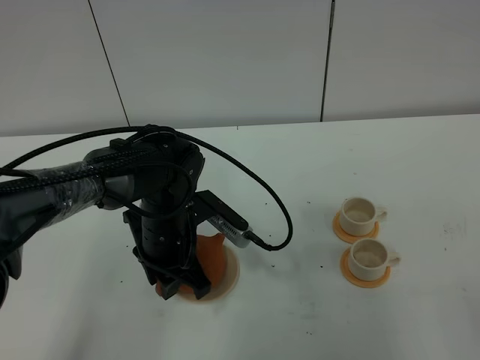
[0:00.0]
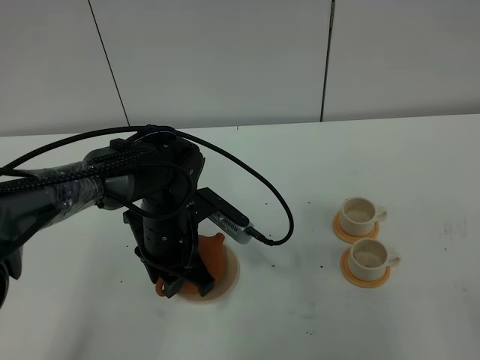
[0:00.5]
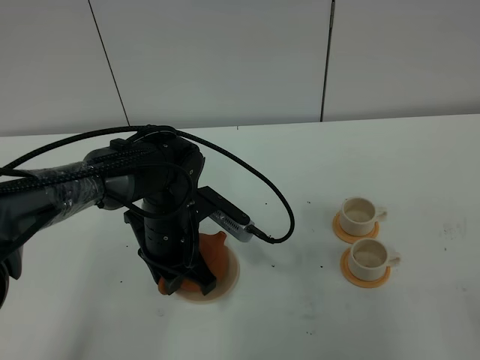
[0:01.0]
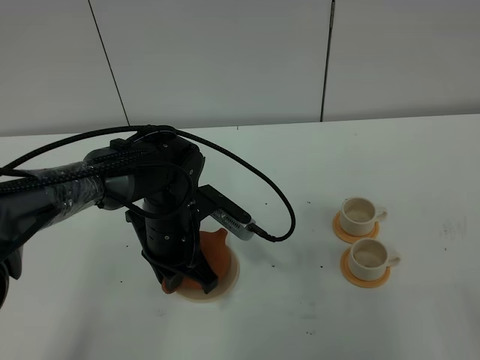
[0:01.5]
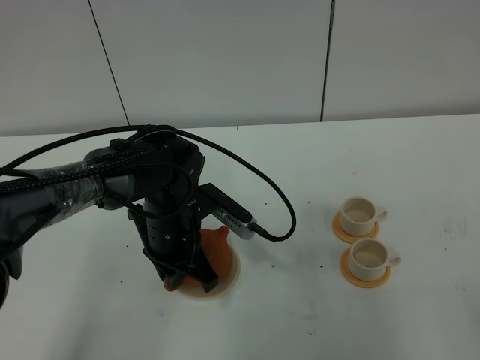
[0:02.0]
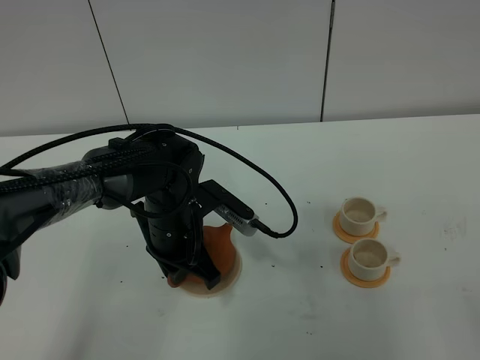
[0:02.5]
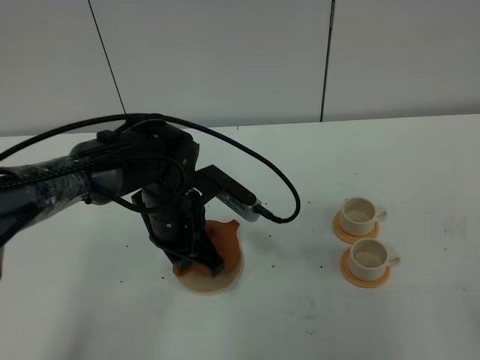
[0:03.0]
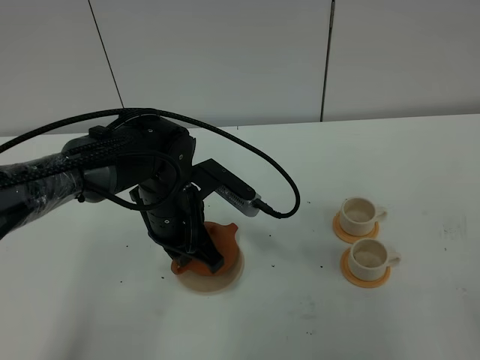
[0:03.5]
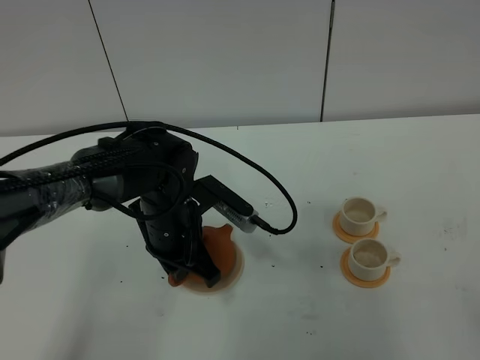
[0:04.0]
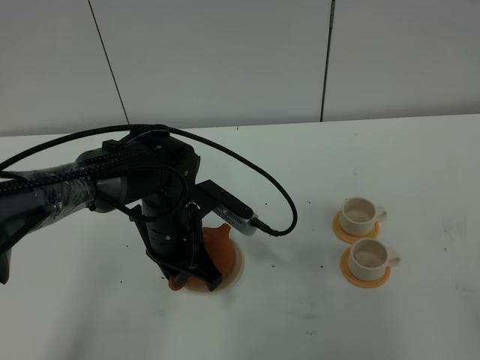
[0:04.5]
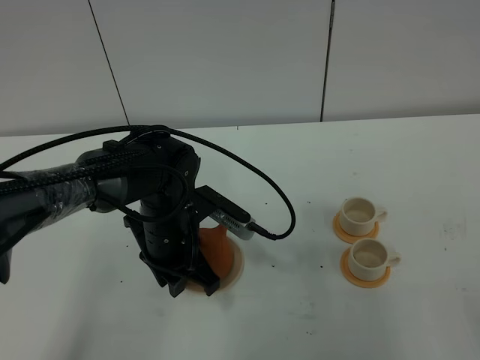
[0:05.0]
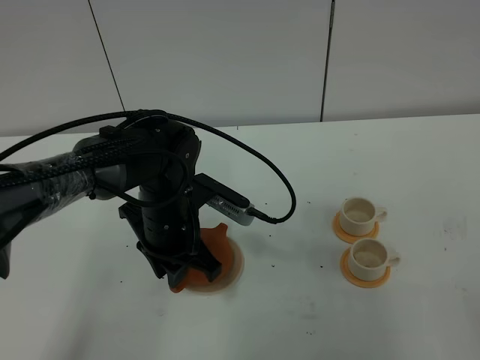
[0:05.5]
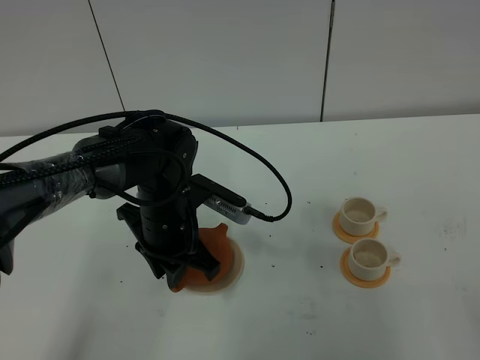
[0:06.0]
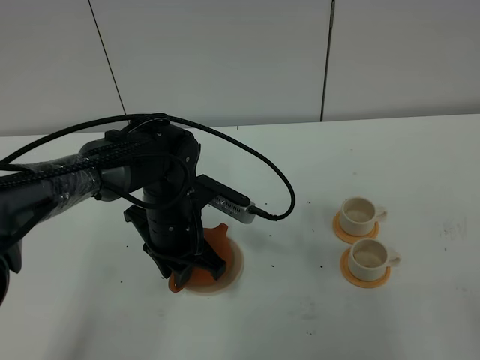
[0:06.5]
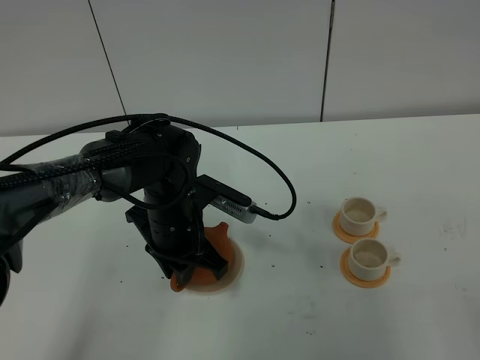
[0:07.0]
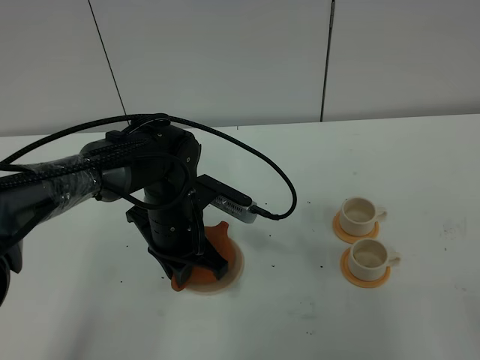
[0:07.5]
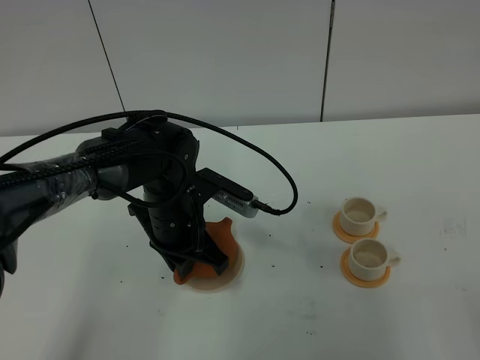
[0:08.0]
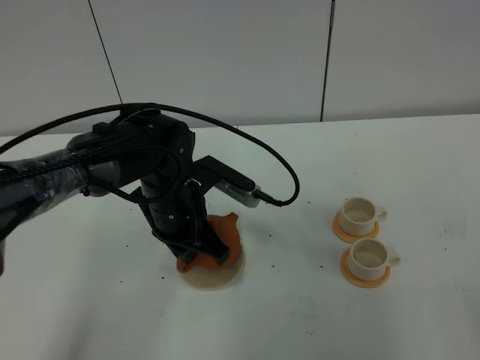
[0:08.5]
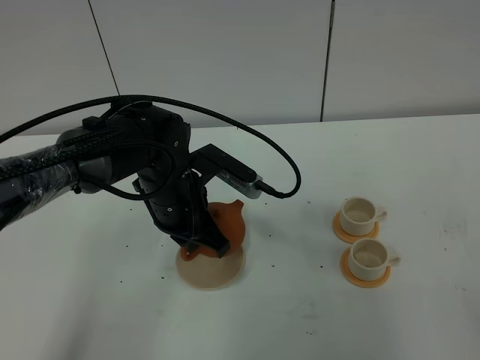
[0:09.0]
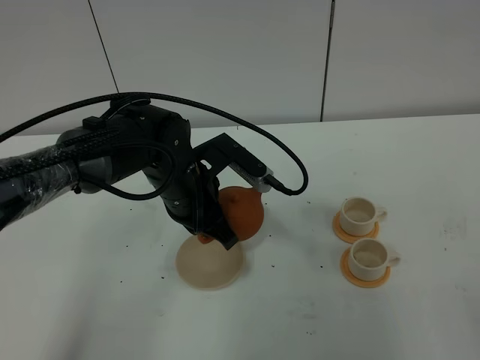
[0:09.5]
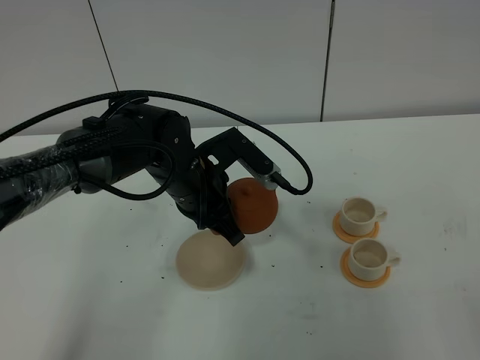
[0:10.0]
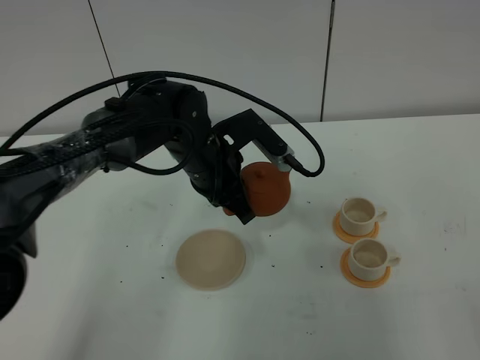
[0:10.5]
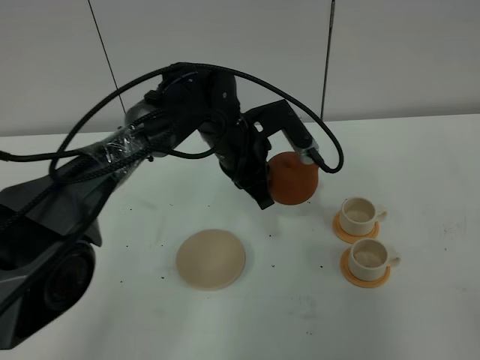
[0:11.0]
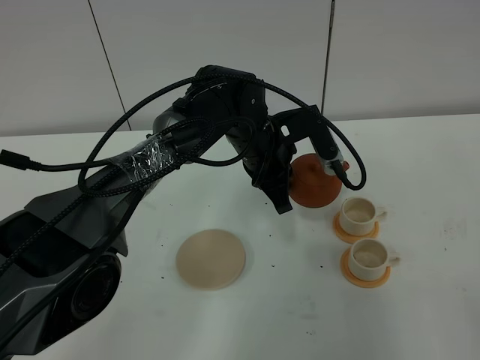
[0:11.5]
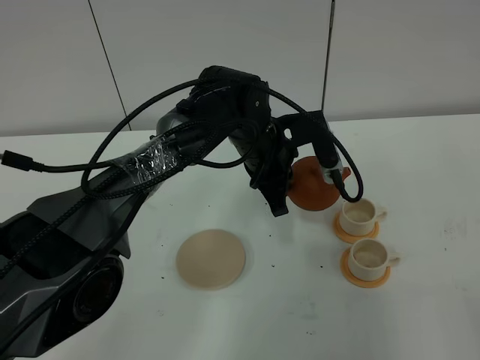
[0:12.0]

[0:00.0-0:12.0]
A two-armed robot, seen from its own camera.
Task of the whole recording: grasp the brown teapot and pour the tea into the two white teacups one by one, put the brown teapot back in its original place.
Step, 0:00.0 to 0:09.0: Pick up the teapot with the left gripper.
0:00.0 to 0:02.0: The left gripper closes its fingers.
0:02.0 to 0:08.0: The grippers stay close to where they were, moving slightly.
0:10.0 to 0:12.0: The left gripper goes approximately 10 cm to the right and forward.

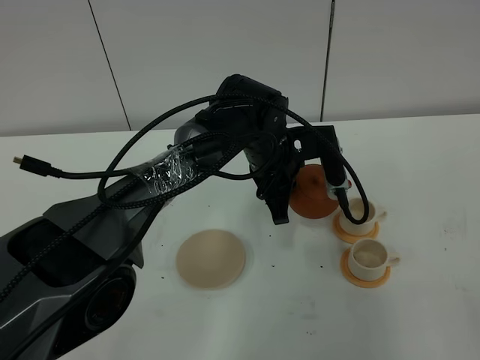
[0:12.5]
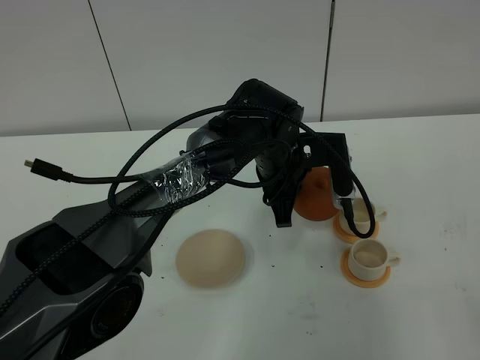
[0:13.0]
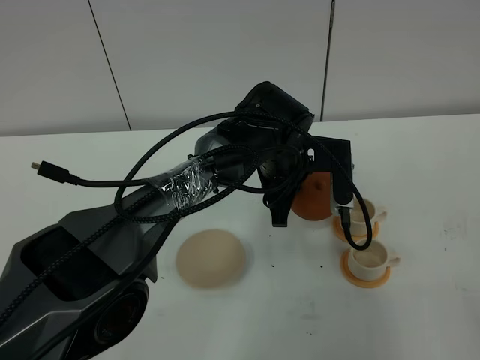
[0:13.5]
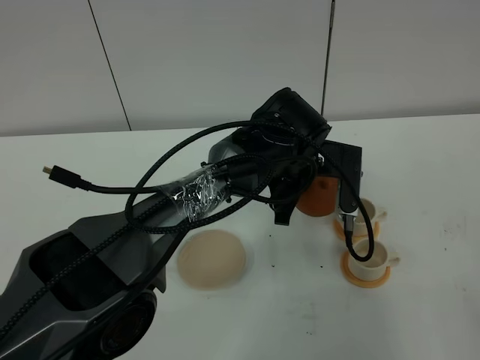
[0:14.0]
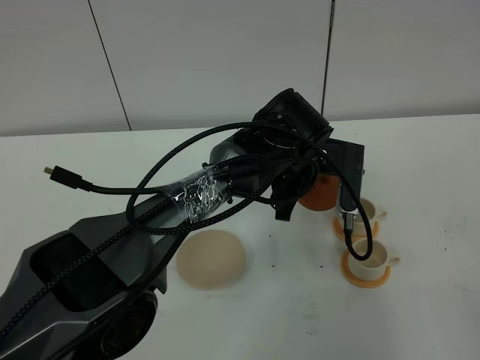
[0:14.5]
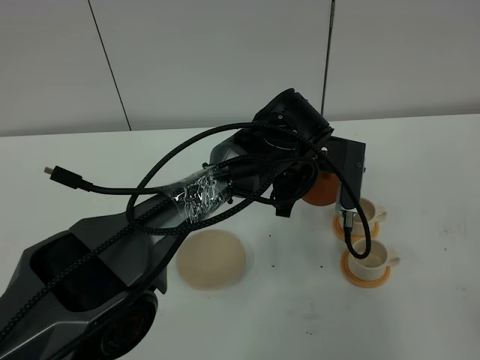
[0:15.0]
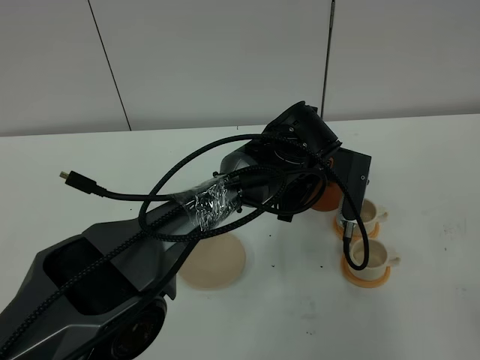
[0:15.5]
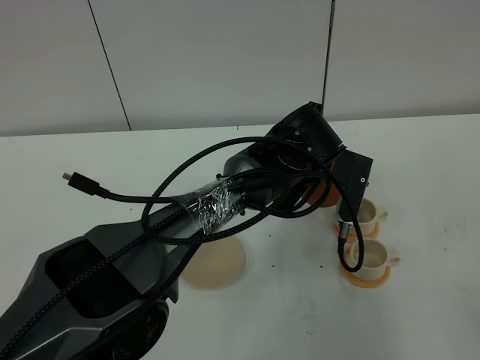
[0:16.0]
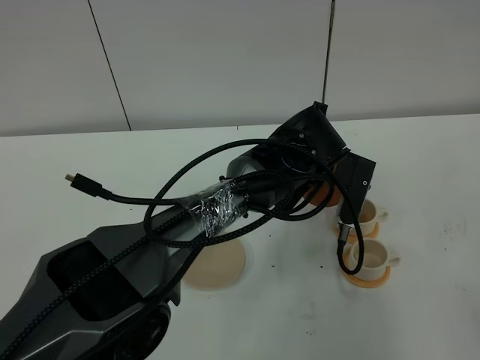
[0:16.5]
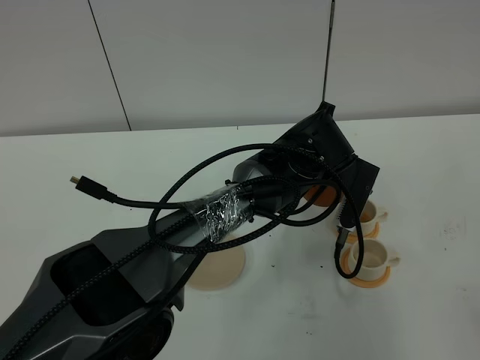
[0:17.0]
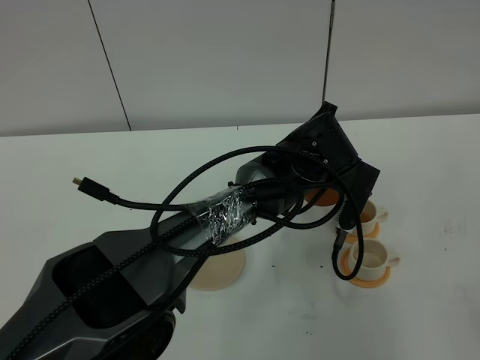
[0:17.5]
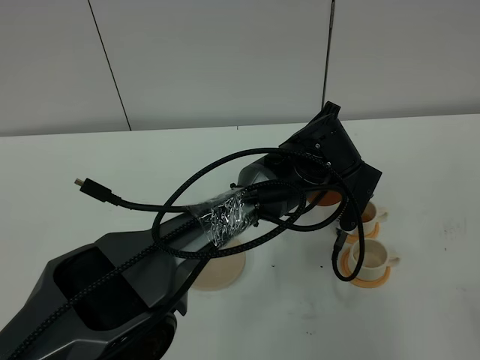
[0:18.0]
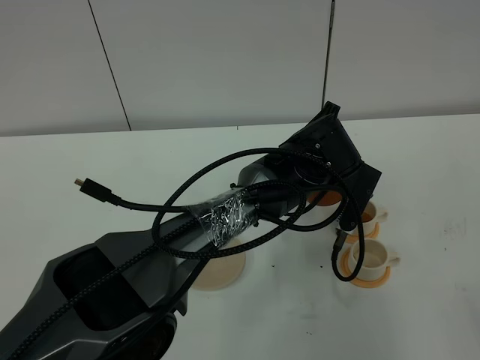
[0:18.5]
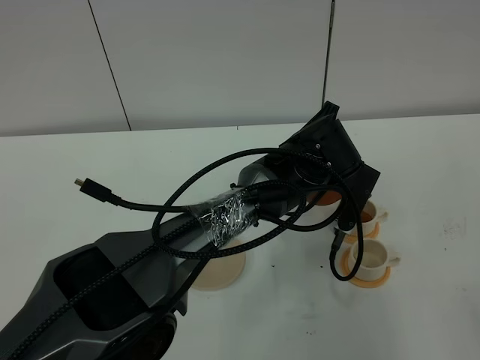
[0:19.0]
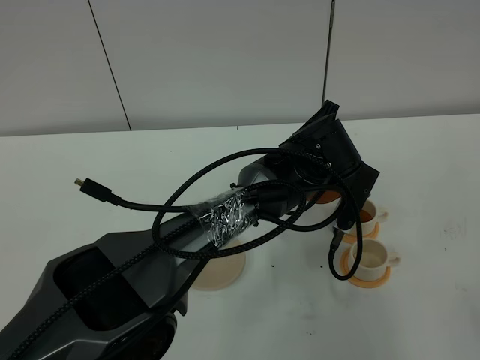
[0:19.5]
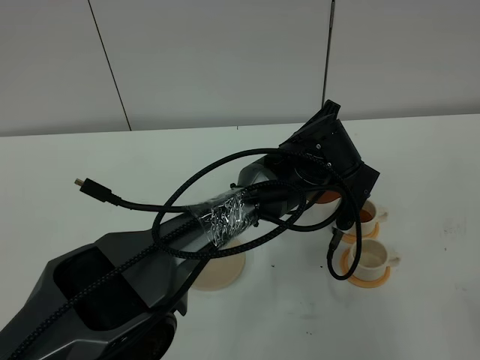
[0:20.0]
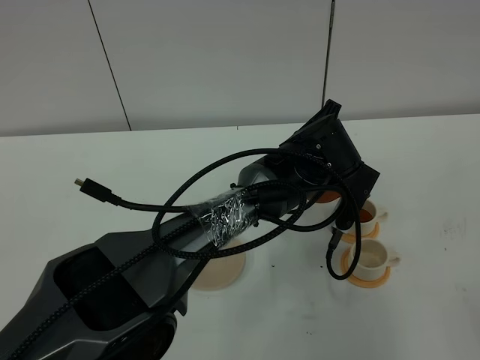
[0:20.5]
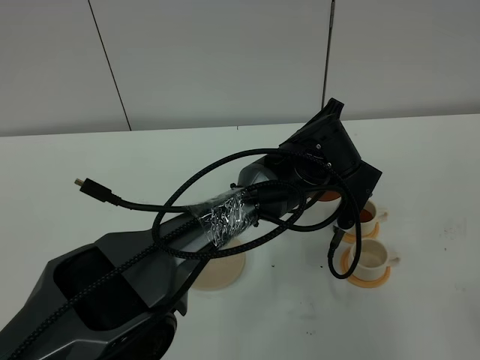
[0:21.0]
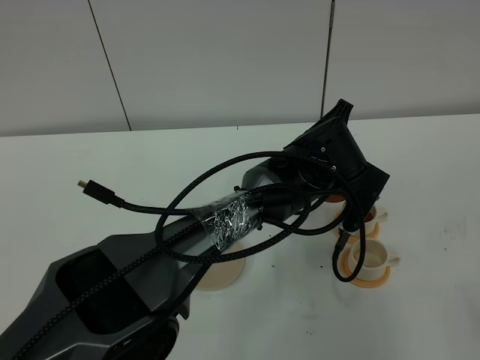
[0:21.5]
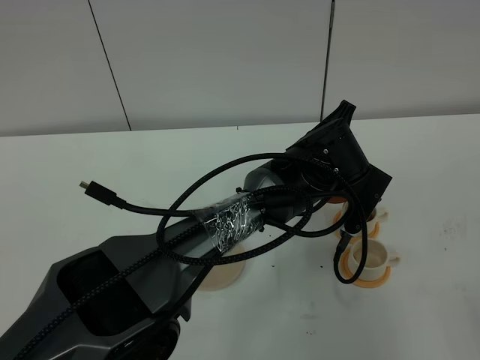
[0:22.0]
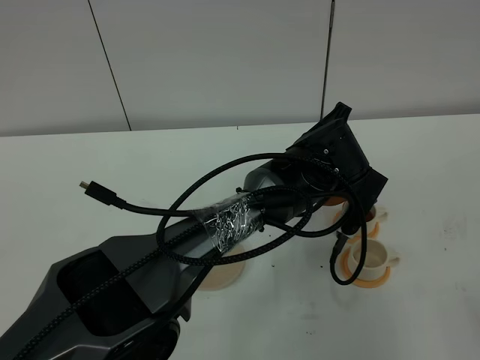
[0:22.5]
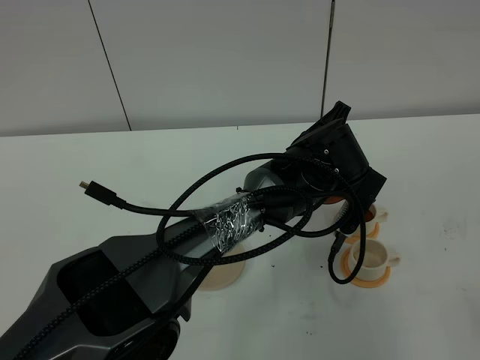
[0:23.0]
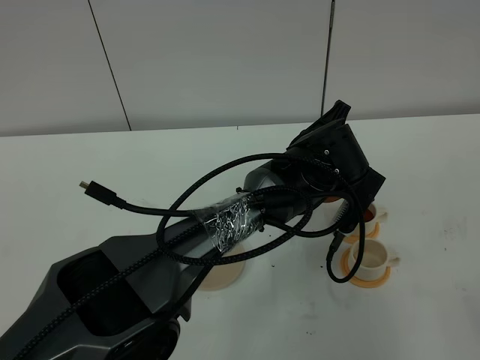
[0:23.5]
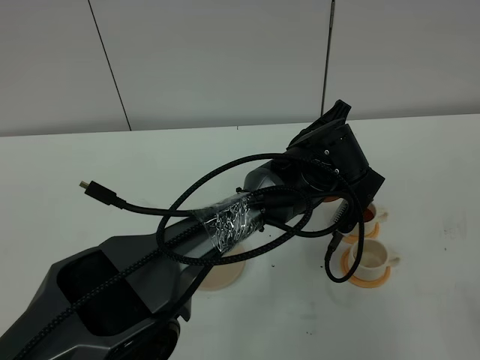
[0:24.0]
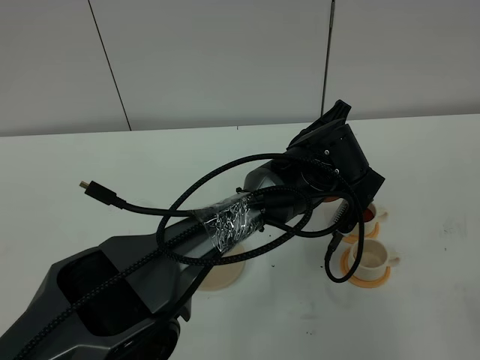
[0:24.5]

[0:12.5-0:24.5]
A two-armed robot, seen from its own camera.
Task of the whole recording: grasp the brown teapot and pour the tea into the two white teacups one by one, put the brown teapot back in its original place.
0:14.5 to 0:16.5: There are only small adjustments of the grippers.
0:16.5 to 0:18.5: The grippers make only small movements.
0:18.5 to 0:20.5: Neither gripper changes place.
0:20.5 to 0:24.5: Both grippers stay put.

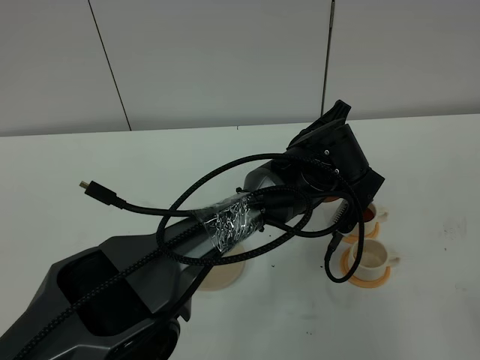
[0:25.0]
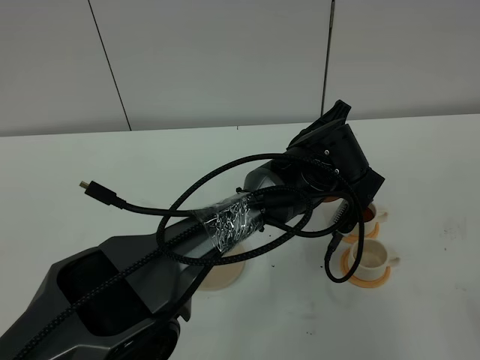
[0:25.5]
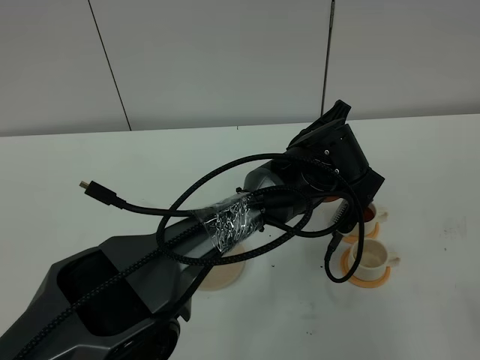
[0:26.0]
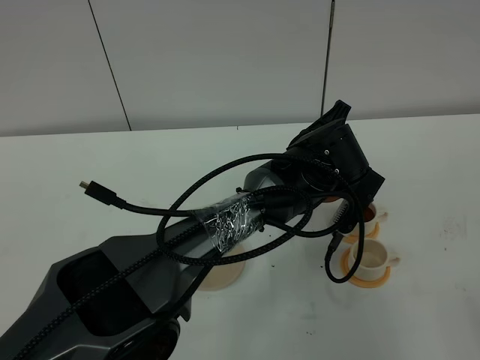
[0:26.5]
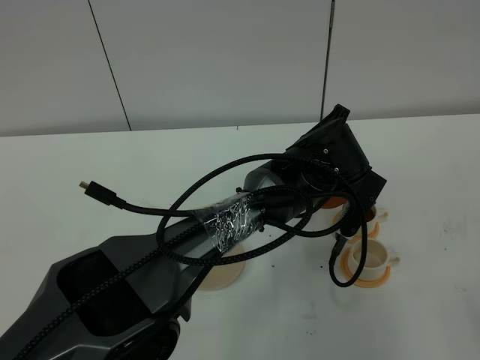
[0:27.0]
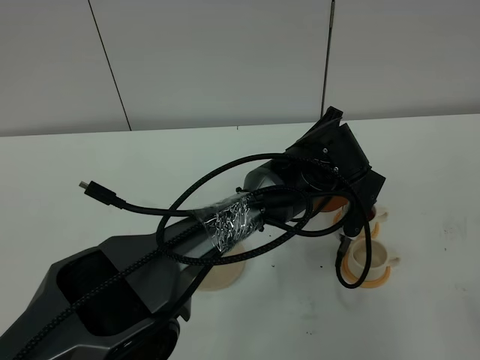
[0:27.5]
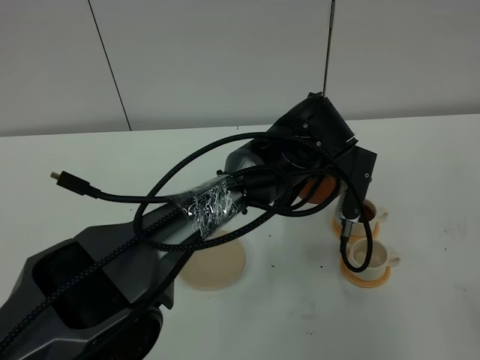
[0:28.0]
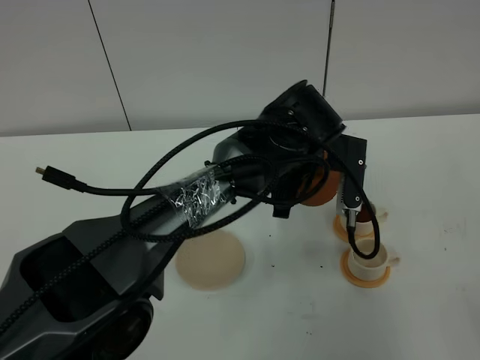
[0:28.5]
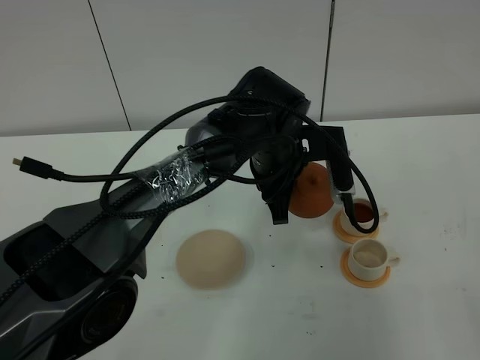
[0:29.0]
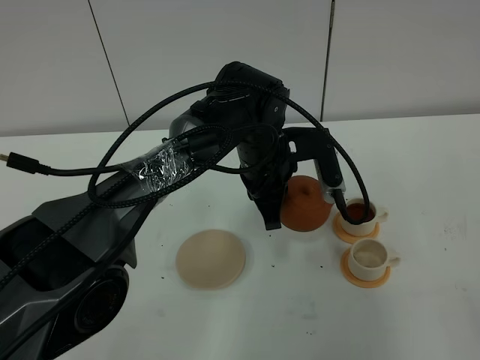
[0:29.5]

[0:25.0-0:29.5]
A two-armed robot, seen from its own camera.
Task of the whole recording: grasp the brown teapot and pour the tea into the two white teacups one by one, put the brown teapot back in its original place.
0:25.0 to 0:27.0: Neither gripper changes place.
0:27.0 to 0:29.5: The left gripper heads to the left, covering about 10 cm.
